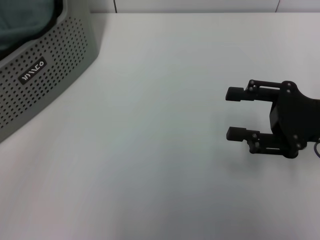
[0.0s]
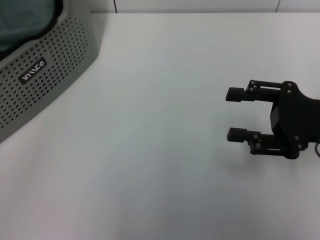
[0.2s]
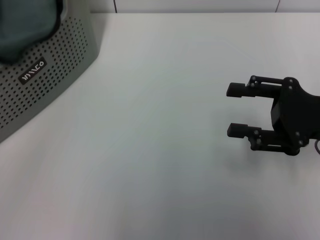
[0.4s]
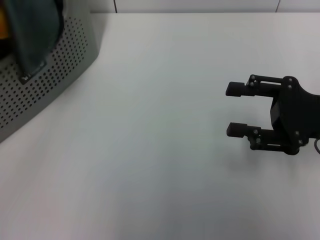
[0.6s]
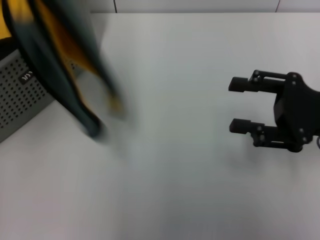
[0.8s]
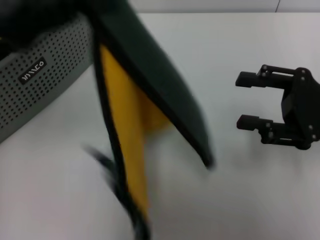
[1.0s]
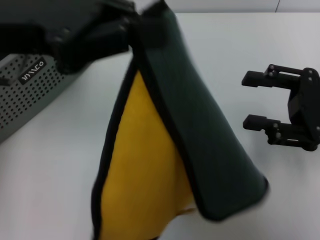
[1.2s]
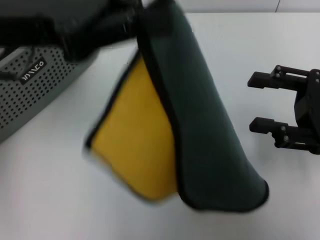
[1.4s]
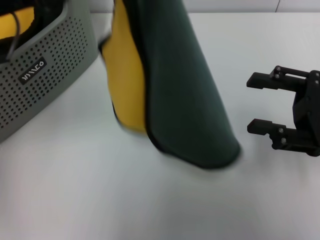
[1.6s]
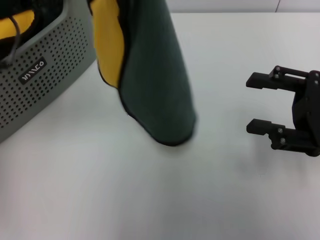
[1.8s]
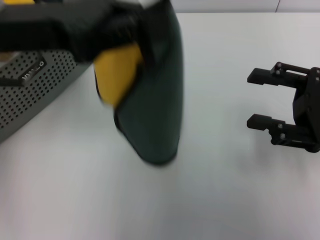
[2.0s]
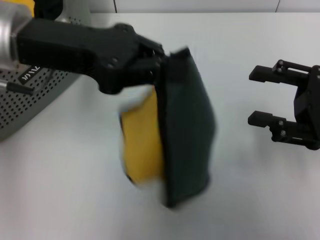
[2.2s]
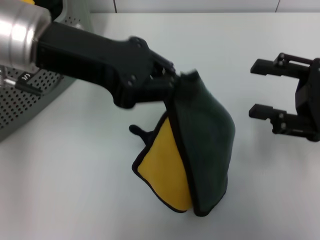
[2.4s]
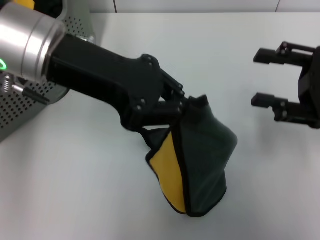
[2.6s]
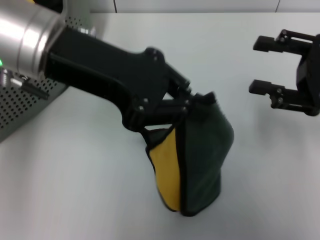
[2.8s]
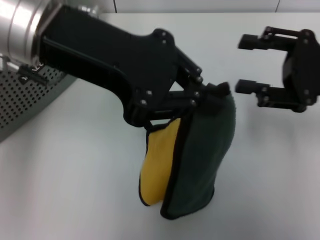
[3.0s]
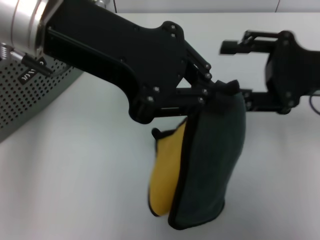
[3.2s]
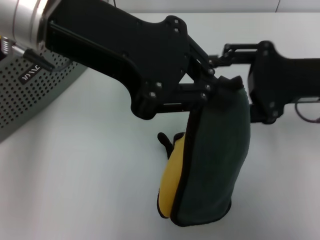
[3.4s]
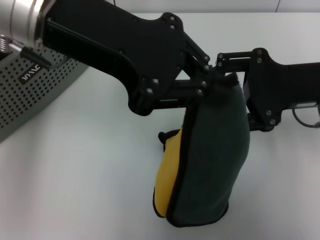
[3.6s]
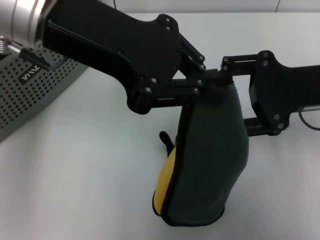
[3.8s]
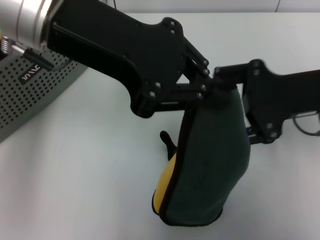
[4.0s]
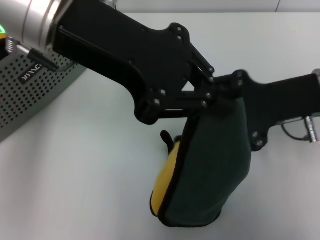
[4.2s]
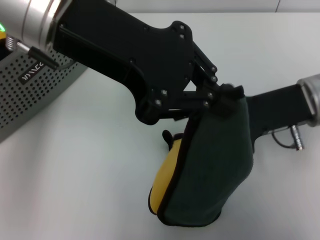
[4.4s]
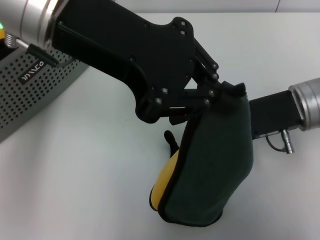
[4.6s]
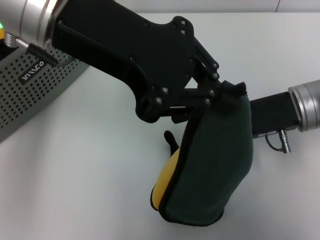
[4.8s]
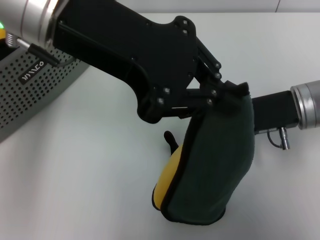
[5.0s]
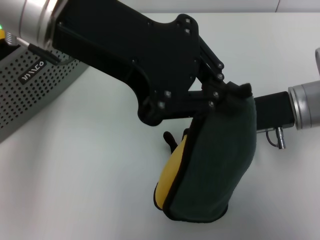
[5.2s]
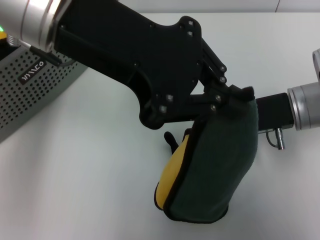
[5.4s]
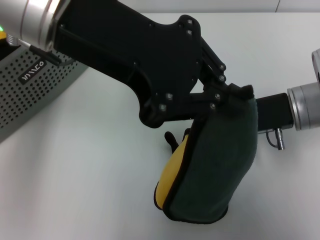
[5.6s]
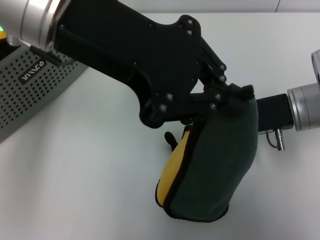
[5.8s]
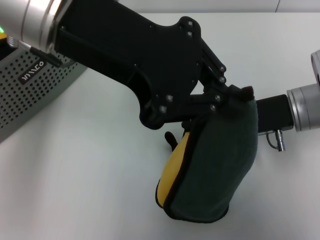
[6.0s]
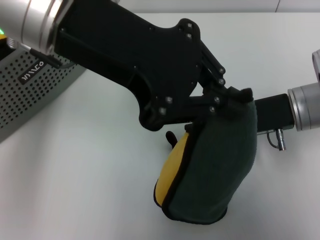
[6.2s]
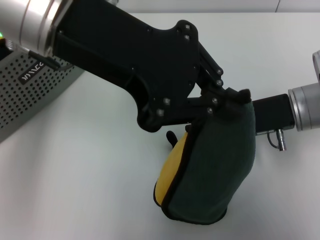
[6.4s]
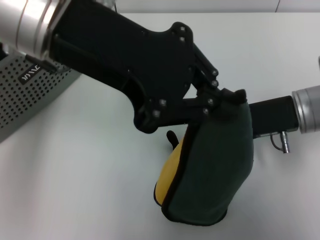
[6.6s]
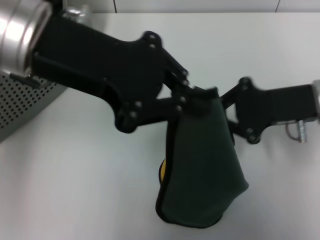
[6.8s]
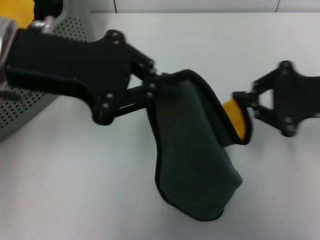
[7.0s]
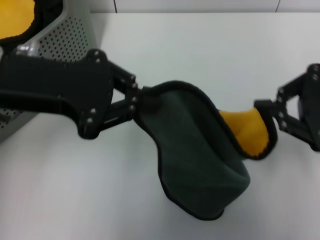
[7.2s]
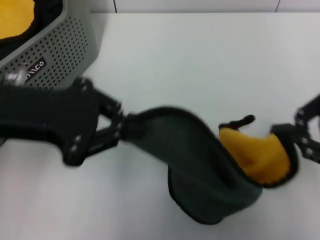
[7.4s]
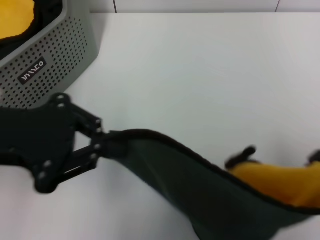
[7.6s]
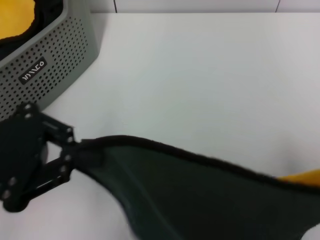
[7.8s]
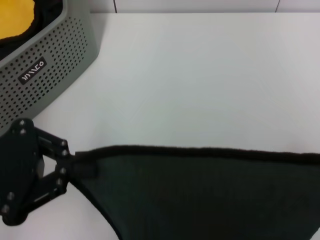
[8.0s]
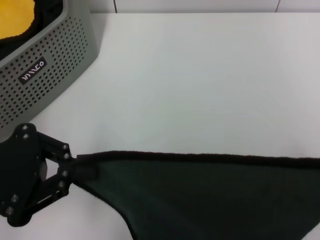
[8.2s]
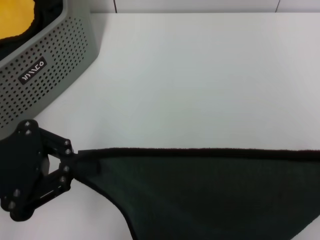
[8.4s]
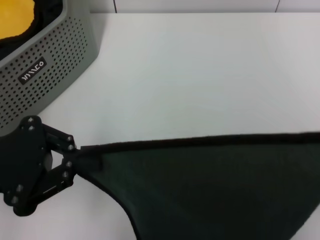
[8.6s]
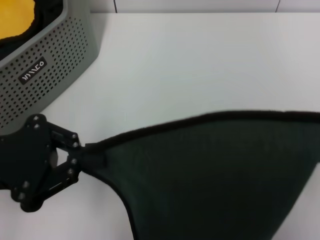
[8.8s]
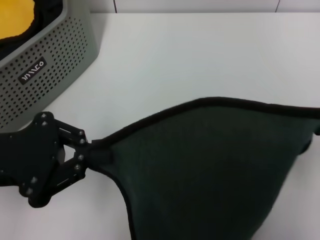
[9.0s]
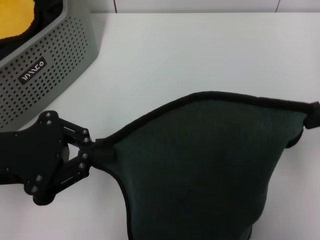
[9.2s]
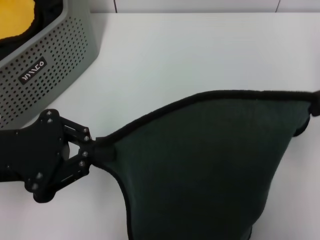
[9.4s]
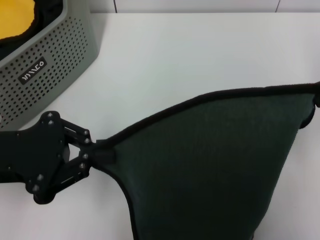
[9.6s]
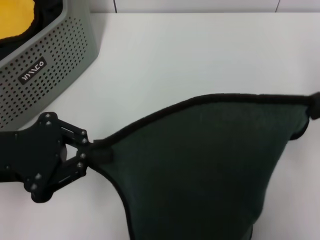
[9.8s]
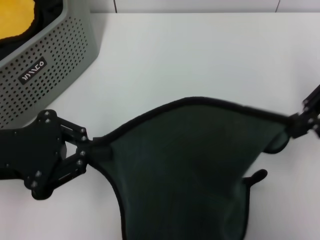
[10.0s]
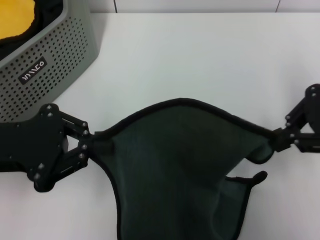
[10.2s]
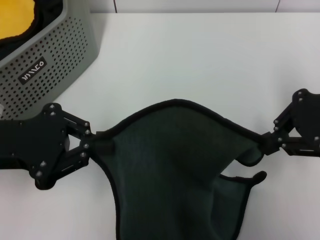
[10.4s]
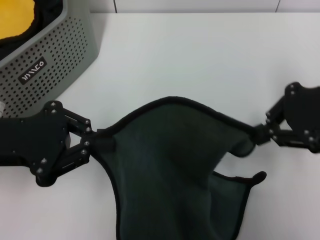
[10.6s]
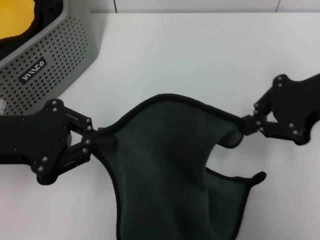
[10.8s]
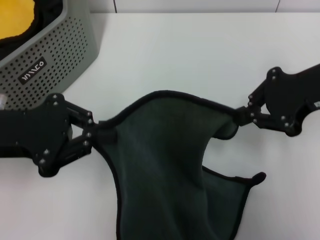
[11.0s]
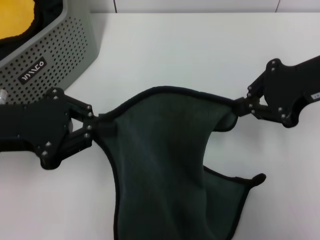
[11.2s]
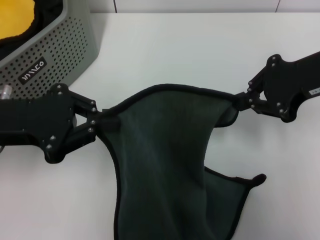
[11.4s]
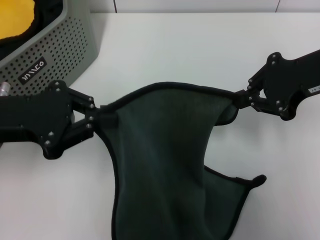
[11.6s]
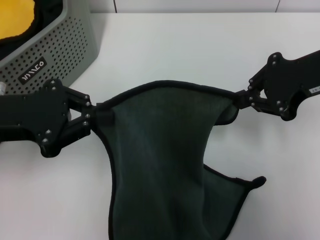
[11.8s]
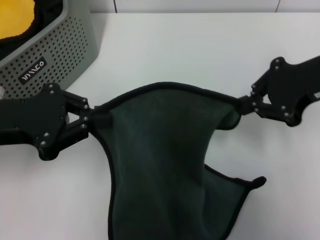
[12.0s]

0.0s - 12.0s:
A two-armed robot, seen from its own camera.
Task of the whole recording: pick up the towel from the storage box and lay it flat on the table.
Step, 0.2s - 6.8s: Spread the towel flat with the left gripper.
0.0s - 1.6s: The left gripper moves to the right and upward, about 20 cm, and closes up.
1.6s - 3.0s: The left gripper heads to the right, covering about 10 cm. The right gripper changes place by some 5 cm.
3.0s - 4.4s: The right gripper goes roughly 5 cm to the left.
4.4s - 6.0s: There are only small adjustments of the grippers.
6.0s - 7.6s: The left gripper heads to the left, downward and backward, covering roughly 15 cm, while the right gripper shifts about 20 cm backward, upward and to the right, and closes its fingers.
7.6s - 9.0s: The left gripper travels downward by some 5 cm.
9.0s - 10.4s: The right gripper travels to the left by approximately 5 cm.

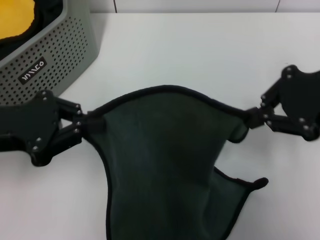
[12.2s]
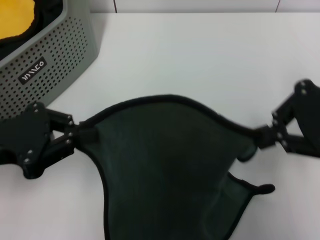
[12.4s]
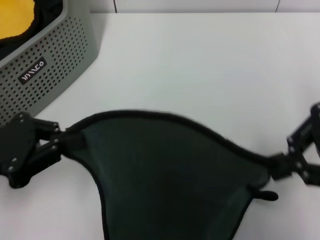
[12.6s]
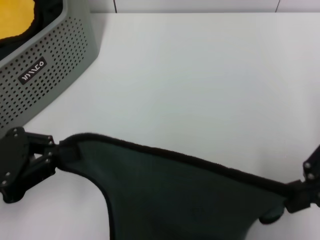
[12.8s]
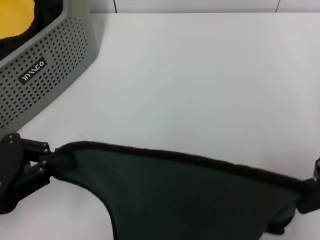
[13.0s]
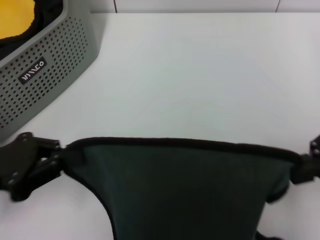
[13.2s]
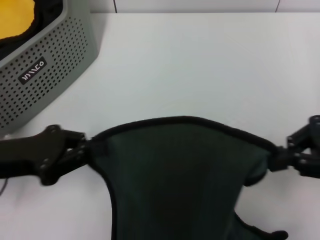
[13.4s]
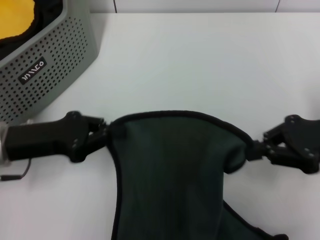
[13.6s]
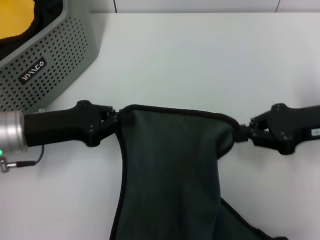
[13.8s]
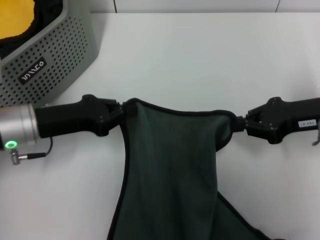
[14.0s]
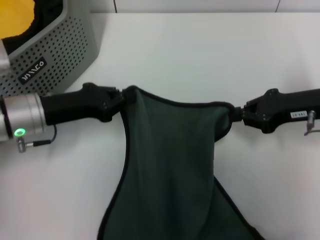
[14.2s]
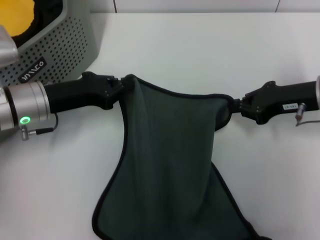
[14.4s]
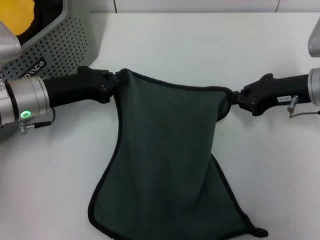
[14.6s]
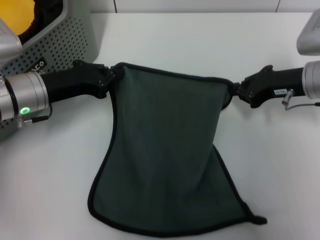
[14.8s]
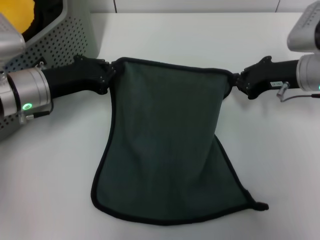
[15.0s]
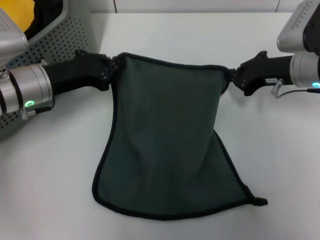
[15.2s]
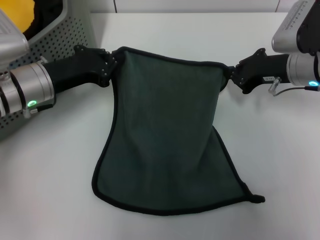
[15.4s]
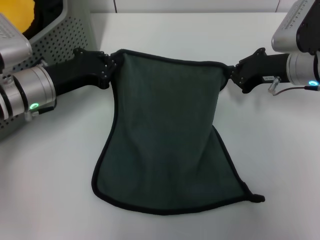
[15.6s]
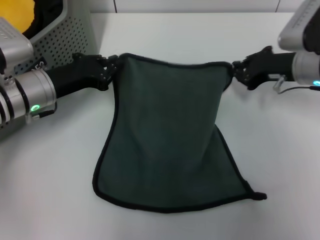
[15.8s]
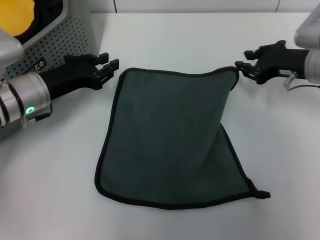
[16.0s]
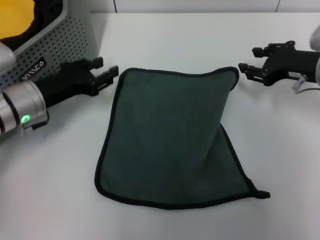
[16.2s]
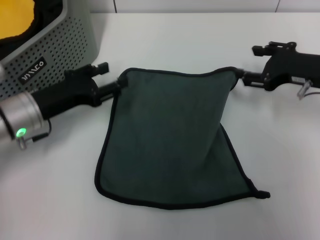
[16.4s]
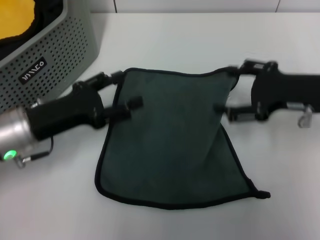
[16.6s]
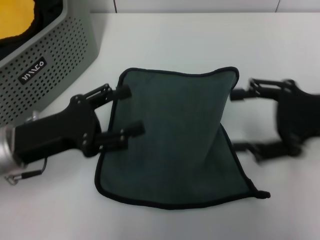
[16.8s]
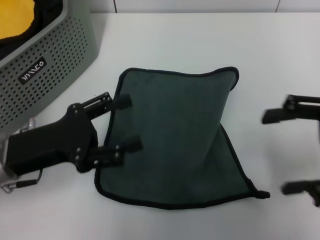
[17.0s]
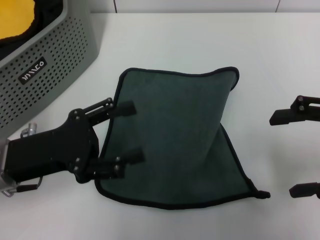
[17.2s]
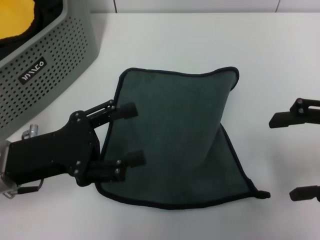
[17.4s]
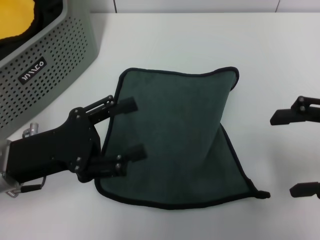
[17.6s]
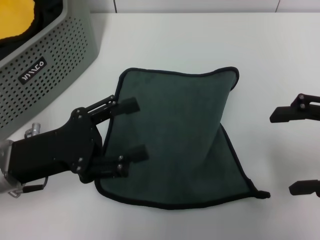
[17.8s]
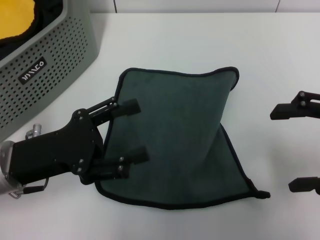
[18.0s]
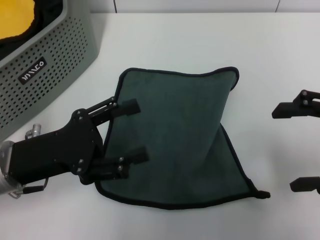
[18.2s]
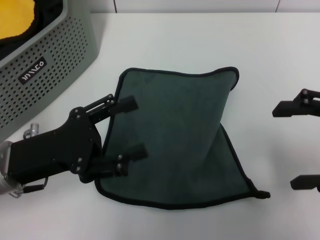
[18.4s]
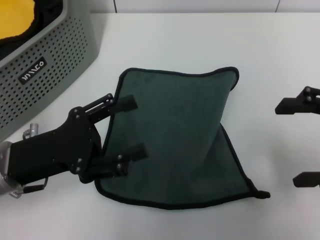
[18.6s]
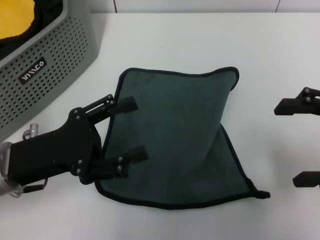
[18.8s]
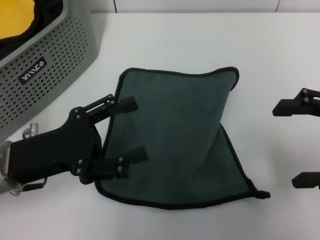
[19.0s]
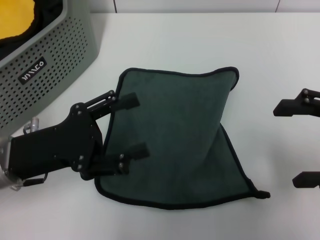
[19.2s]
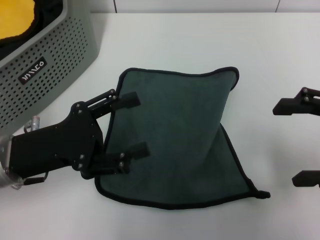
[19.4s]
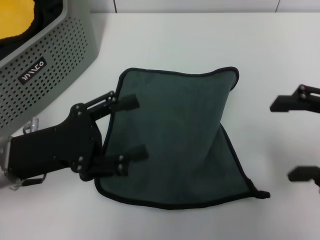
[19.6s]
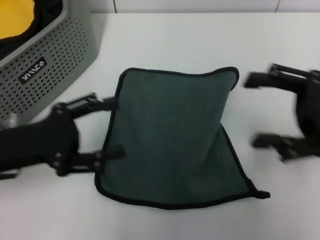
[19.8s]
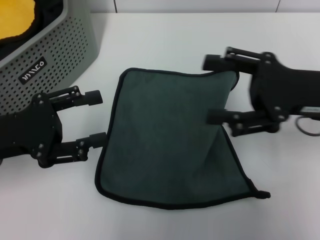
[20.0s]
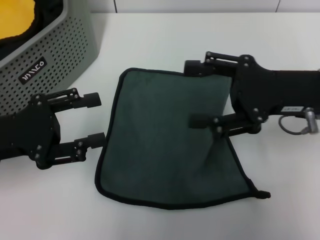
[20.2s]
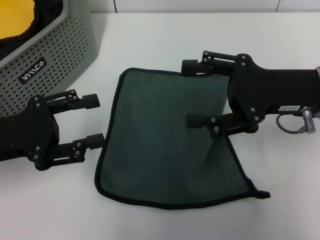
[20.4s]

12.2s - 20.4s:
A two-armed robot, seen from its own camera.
Task of the whole recording: pick up the towel from the storage box and lay it flat on the table.
Step, 12.2s - 15.8s: Spread the towel flat with the right gripper.
12.2s - 13.8s: The right gripper is displaced downward by some 10 cm. Meanwhile the left gripper is displaced downward by about 5 cm, and travels backward and back again, about 5 cm each way.
13.8s - 15.4s: The right gripper goes approximately 10 cm forward and to the left; the left gripper travels forward by approximately 10 cm.
15.4s - 17.2s: The left gripper moves backward, roughly 10 cm, and opens. Meanwhile the right gripper moves backward, to the right and upward, about 20 cm, and opens up.
17.2s - 18.8s: The grippers stay close to where they were, moving slightly.
18.8s - 20.4s: The left gripper is displaced to the left by about 5 cm, while the right gripper heads to the left and forward, covering roughly 10 cm.
